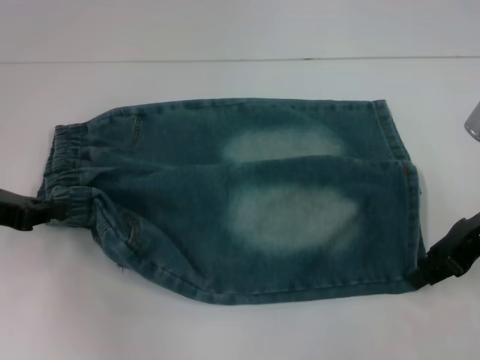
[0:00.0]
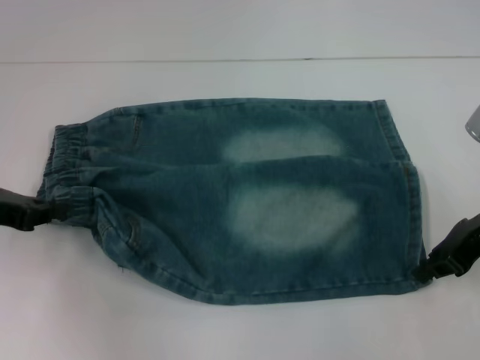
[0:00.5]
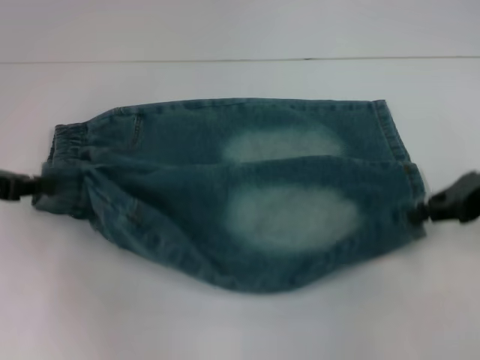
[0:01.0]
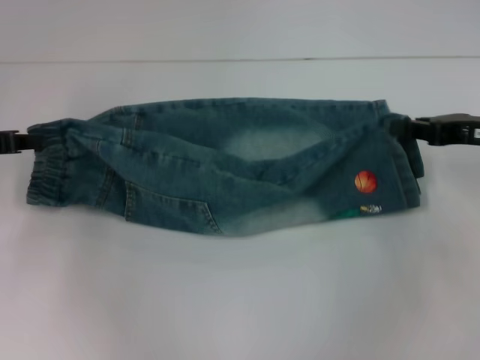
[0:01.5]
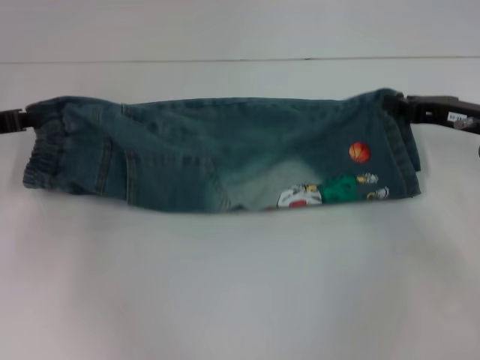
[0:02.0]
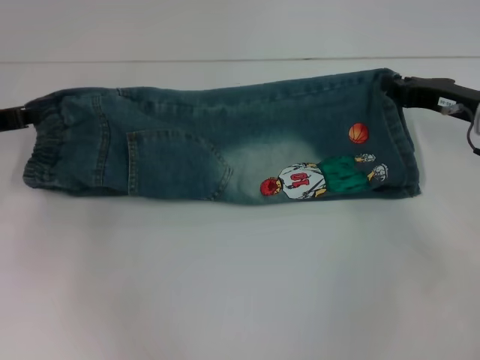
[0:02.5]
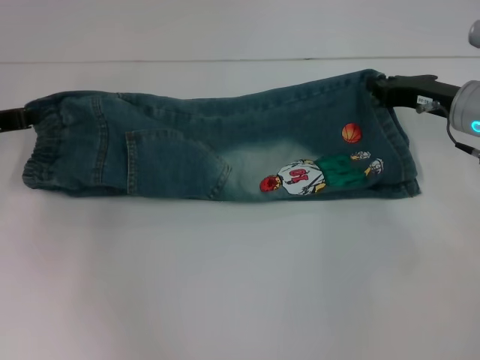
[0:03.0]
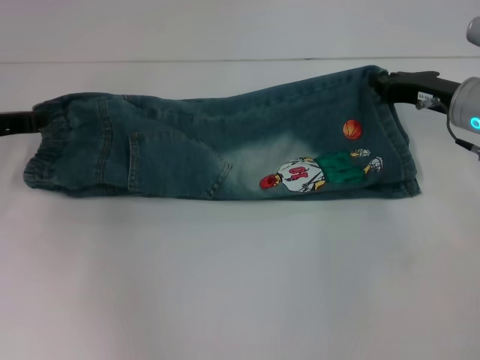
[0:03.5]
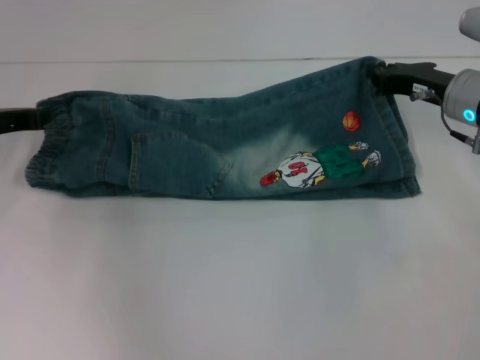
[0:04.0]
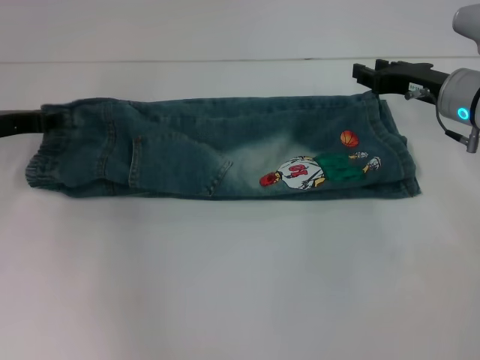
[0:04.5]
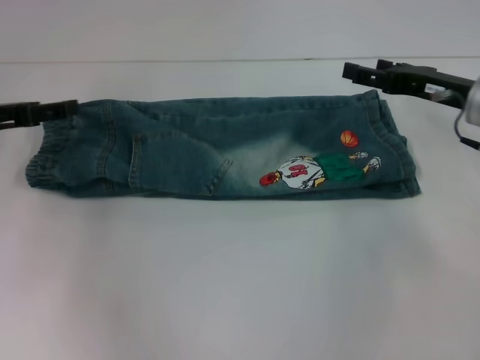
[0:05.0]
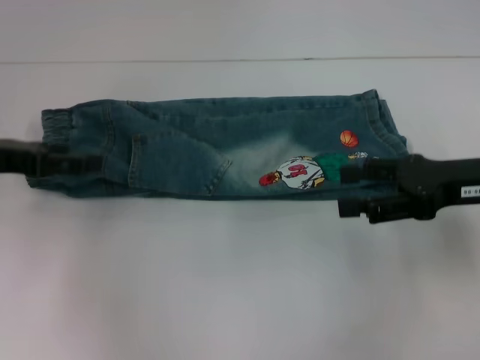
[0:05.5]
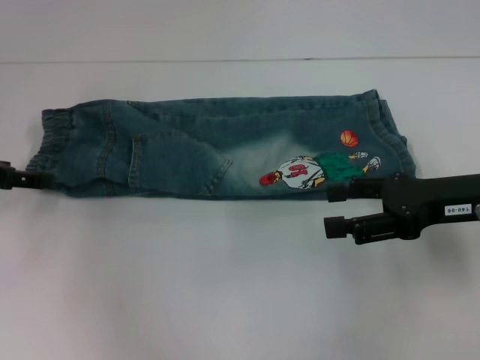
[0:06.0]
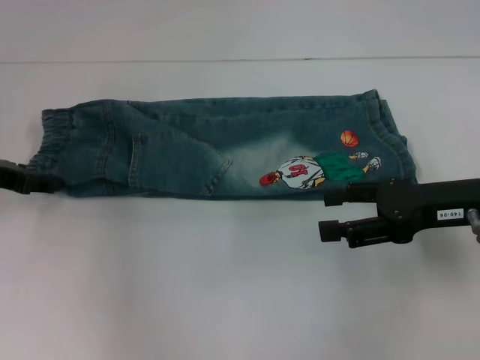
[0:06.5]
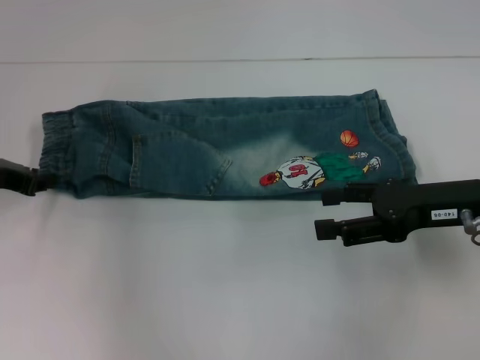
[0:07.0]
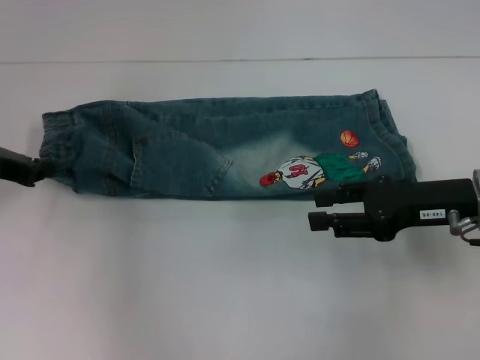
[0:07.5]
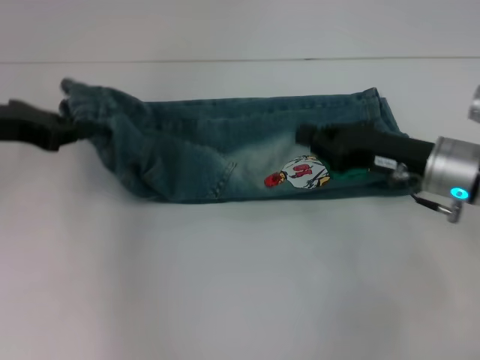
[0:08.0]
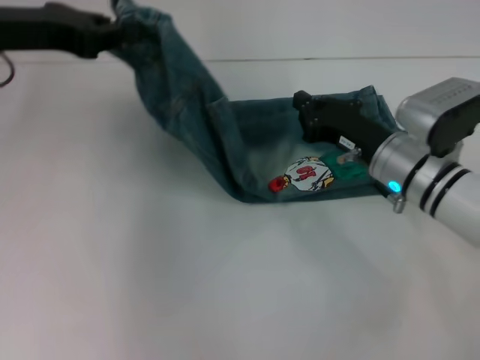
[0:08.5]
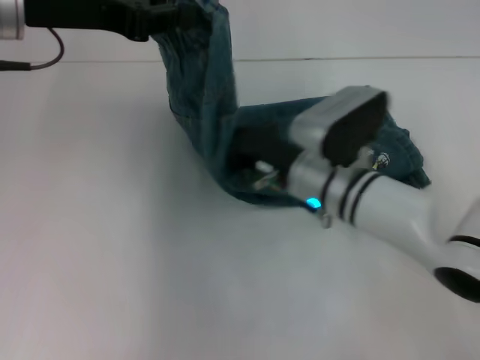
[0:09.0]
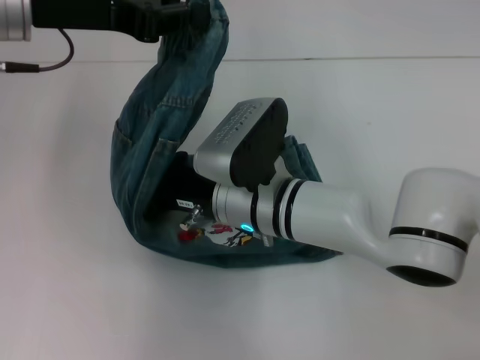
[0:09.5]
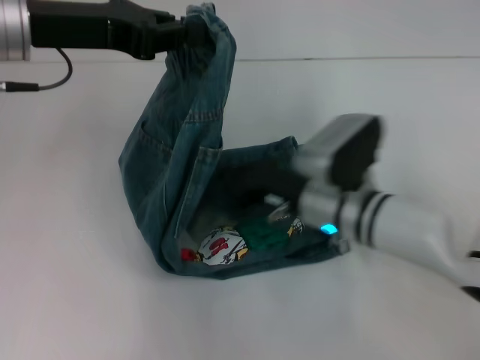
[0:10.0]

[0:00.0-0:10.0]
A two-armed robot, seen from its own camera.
Step, 0:01.0 to 0:04.0: Fold upward with your right hand.
Step, 0:05.0 to 0:07.0: Hold the waistband with your left hand.
Step, 0:07.5 to 0:09.5: Press the middle of the pants with your right hand.
0:00.0 to 0:02.0: The left gripper moves forward, some 5 cm; the right gripper closes up.
0:02.0 to 0:04.0: The right gripper moves roughly 5 cm.
0:04.0 to 0:06.0: The left gripper moves some 5 cm, and opens its fingers, while the right gripper travels backward by about 10 cm, and opens.
0:06.0 to 0:08.0: The right gripper shifts by some 5 cm, and closes up; the left gripper moves upward, approximately 5 cm, and closes its fingers.
0:08.0 to 0:10.0: The left gripper heads to the right and upward, covering approximately 10 cm, while the right gripper moves to the left, roughly 10 cm.

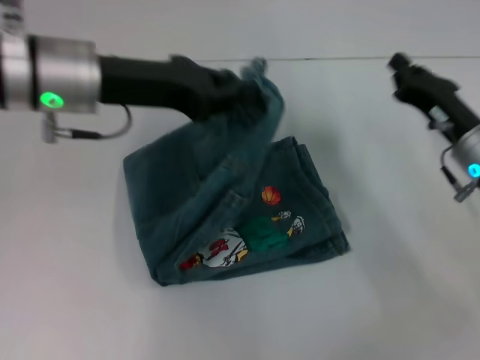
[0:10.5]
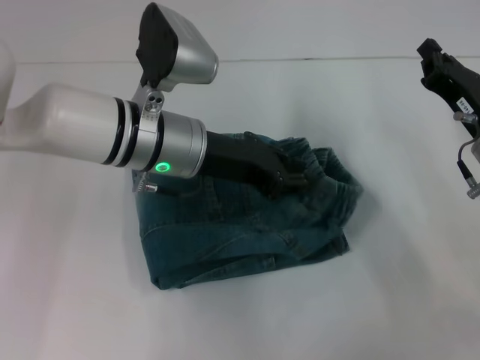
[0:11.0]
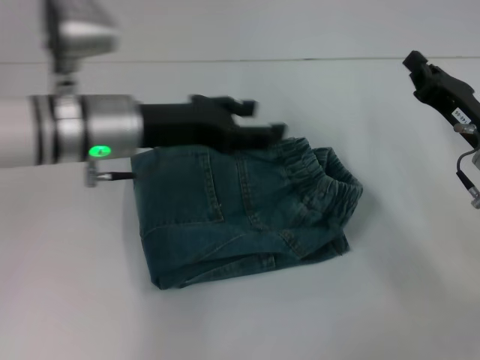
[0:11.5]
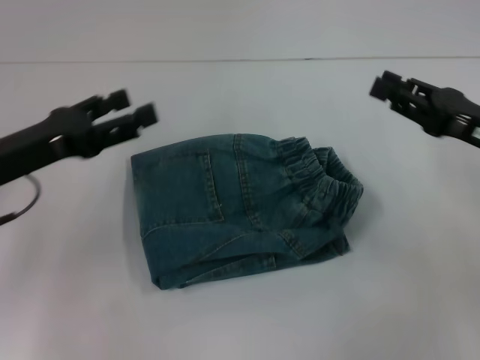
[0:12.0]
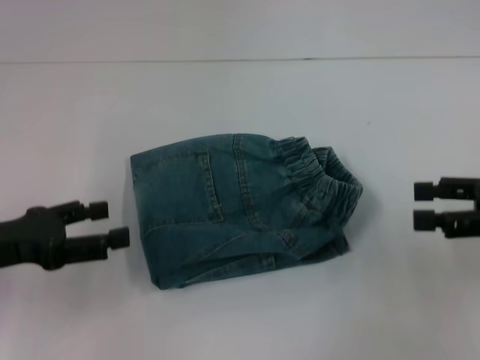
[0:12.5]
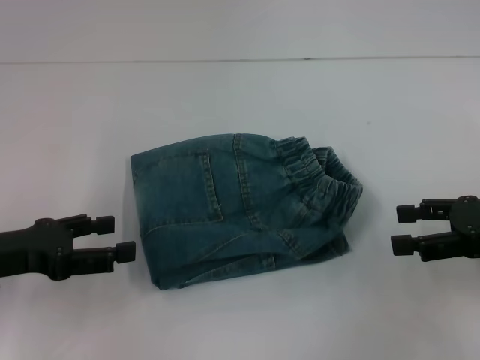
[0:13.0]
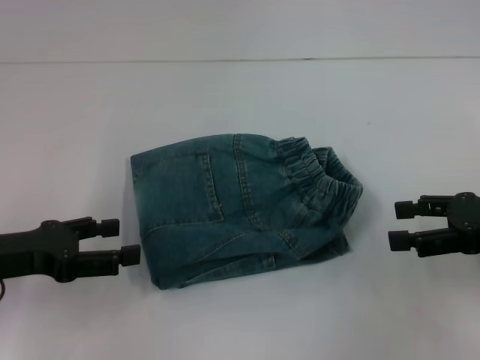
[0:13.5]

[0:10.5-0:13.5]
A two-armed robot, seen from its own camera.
0:10.5 to 0:12.0: The left gripper moves to the left, downward and backward, roughly 15 cm, and opens its fingers, while the right gripper moves approximately 5 cm.
0:12.0 to 0:13.5: The left gripper moves roughly 5 cm. Meanwhile the right gripper opens its fingers.

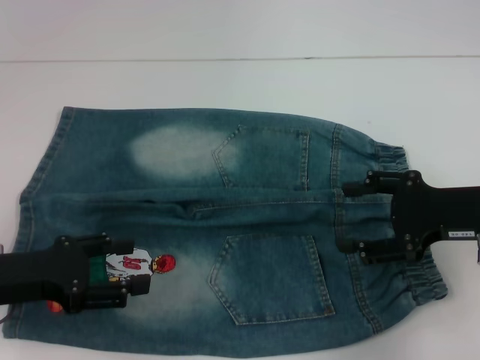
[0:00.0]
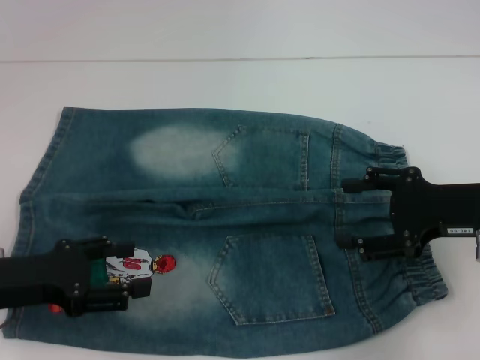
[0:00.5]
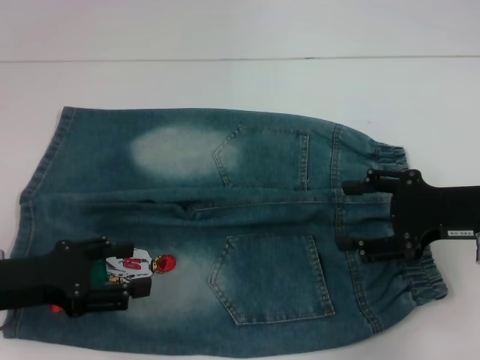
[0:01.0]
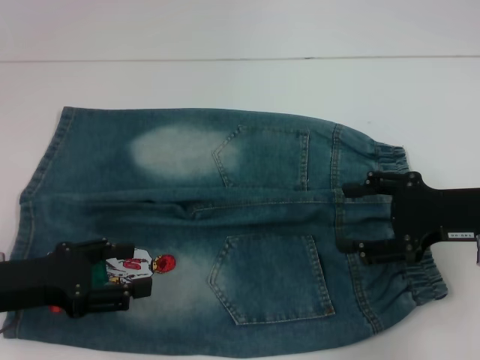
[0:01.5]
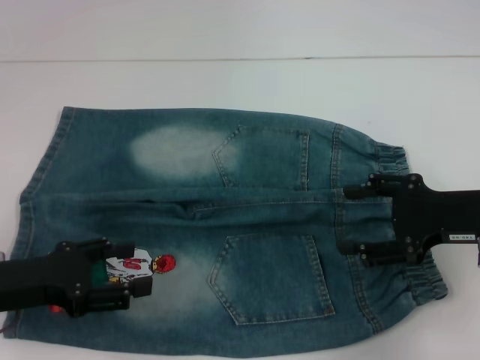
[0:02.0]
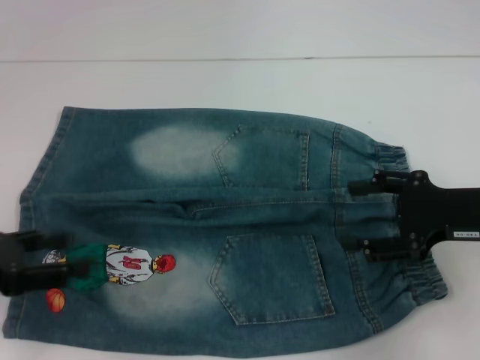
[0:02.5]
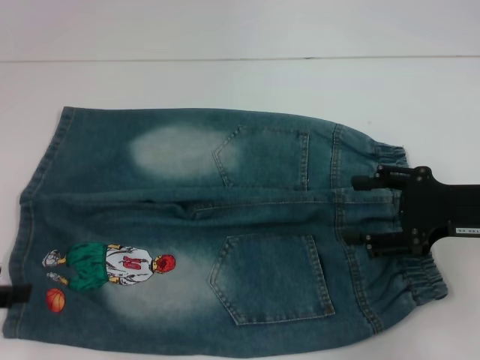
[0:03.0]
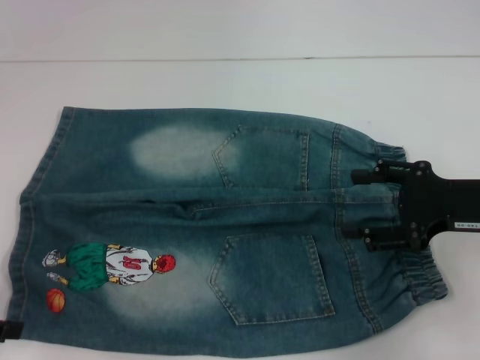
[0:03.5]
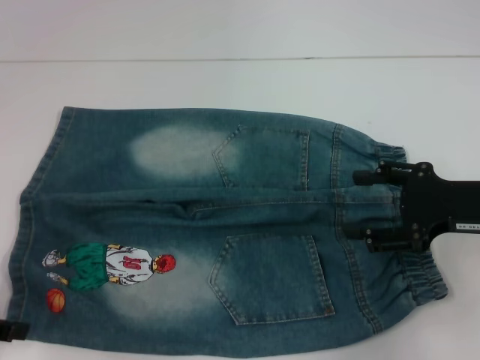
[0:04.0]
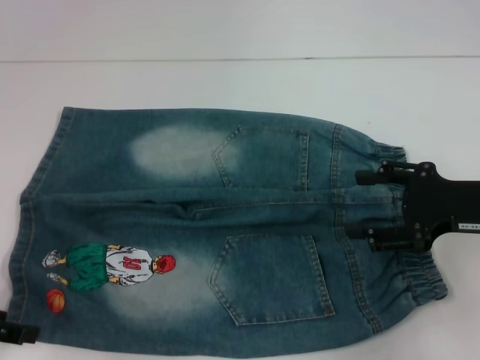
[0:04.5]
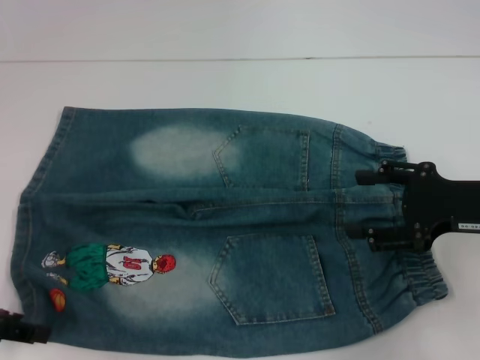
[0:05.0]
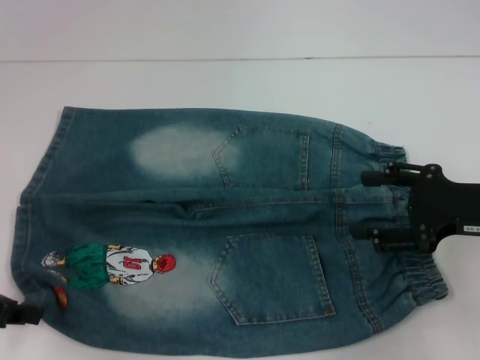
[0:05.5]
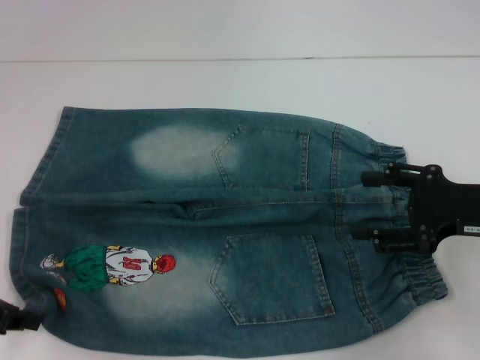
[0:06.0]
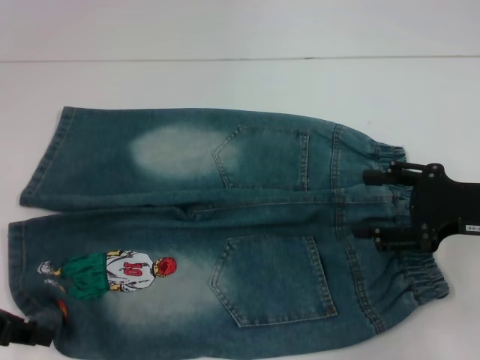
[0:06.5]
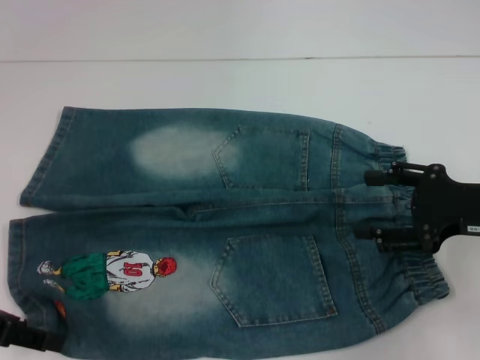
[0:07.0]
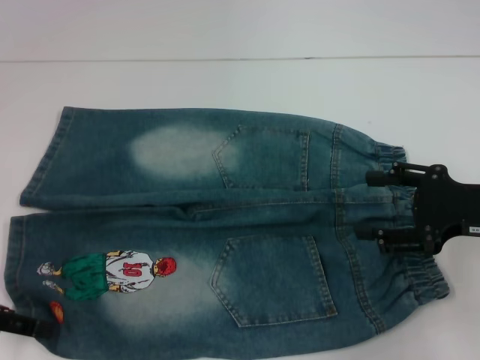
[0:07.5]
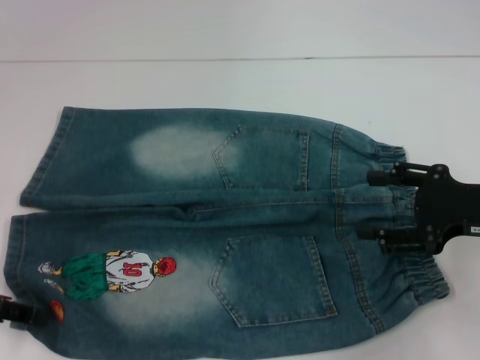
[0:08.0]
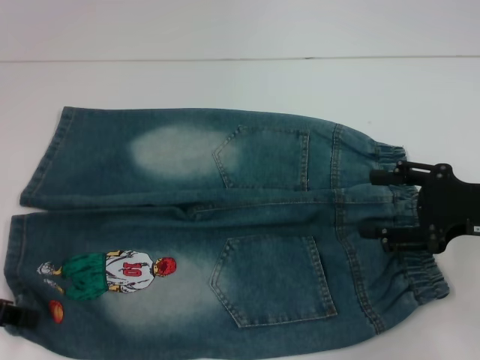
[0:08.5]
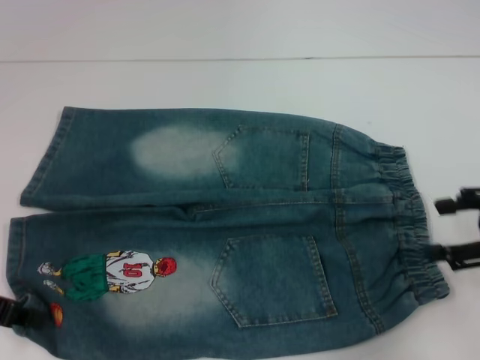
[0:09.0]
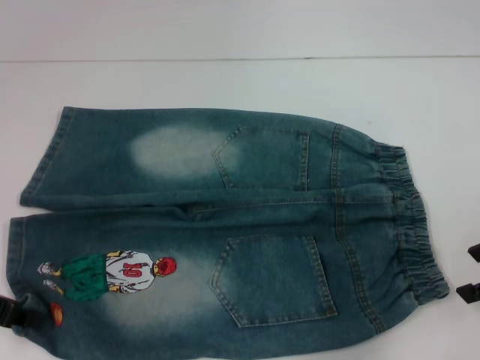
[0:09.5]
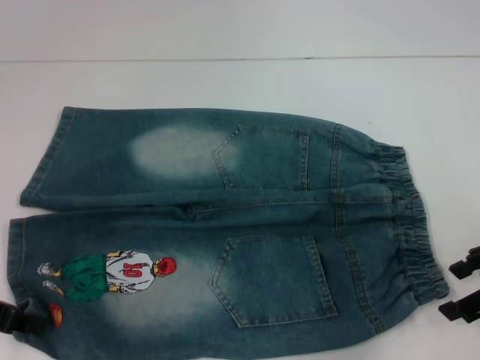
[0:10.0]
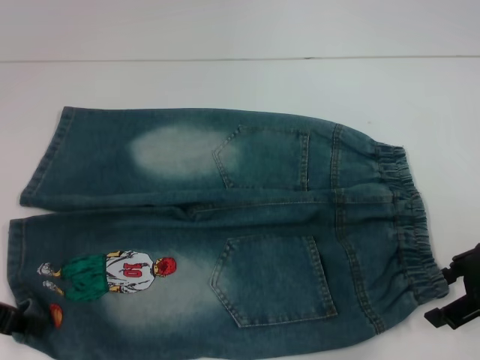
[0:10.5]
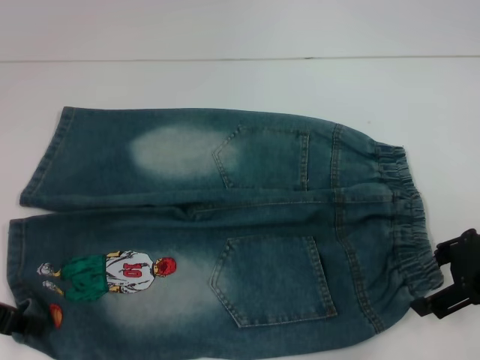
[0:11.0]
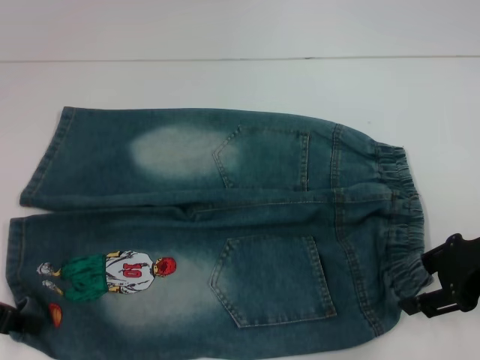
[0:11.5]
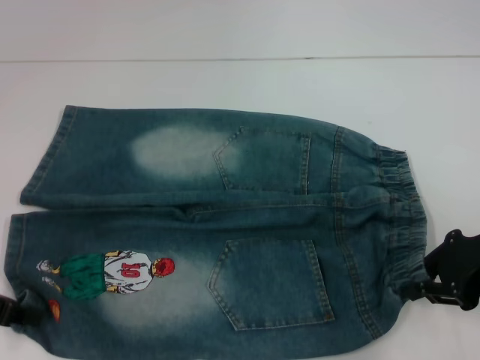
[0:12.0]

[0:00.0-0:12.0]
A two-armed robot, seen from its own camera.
Step, 0:00.0 to 0:10.0: Grab the lower left pant leg with your left hand.
Step, 0:10.5 to 0:12.0: Hold the lower right waistband with your right hand.
0:00.0 to 0:02.0: Both grippers stay about where they are.
0:02.0 to 0:04.0: The left gripper shifts approximately 5 cm to the left.
0:04.0 to 0:06.0: The left gripper closes its fingers.
0:06.0 to 0:08.0: The left gripper opens.
0:08.0 to 0:10.0: The left gripper closes.
0:10.0 to 0:12.0: The right gripper closes up.
